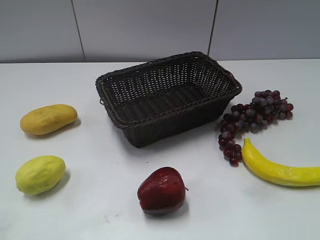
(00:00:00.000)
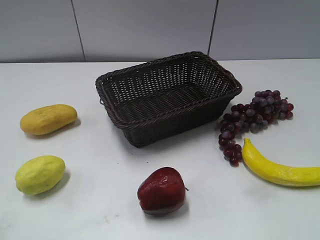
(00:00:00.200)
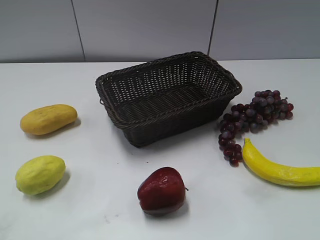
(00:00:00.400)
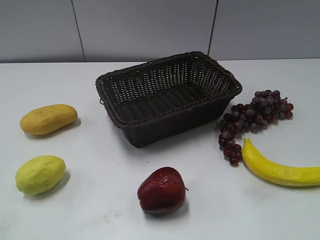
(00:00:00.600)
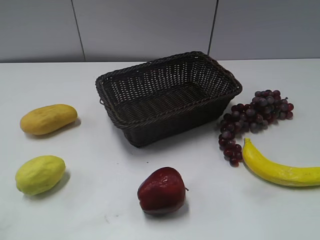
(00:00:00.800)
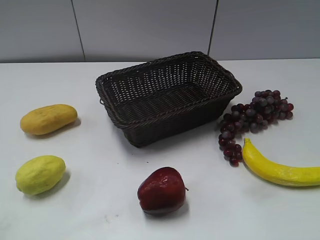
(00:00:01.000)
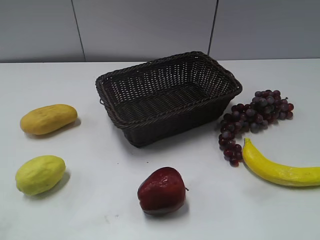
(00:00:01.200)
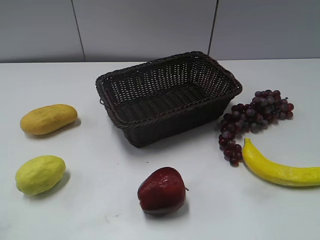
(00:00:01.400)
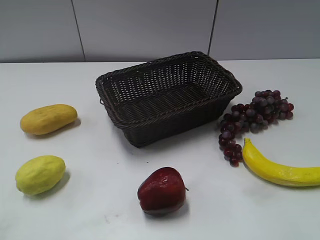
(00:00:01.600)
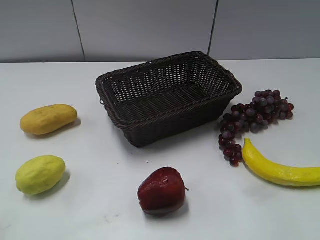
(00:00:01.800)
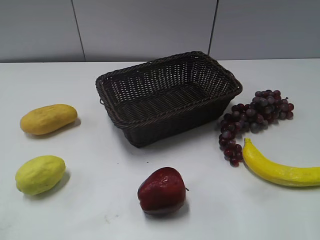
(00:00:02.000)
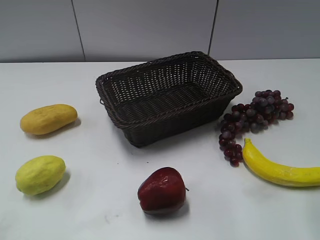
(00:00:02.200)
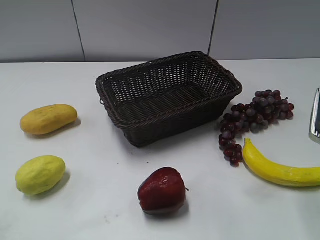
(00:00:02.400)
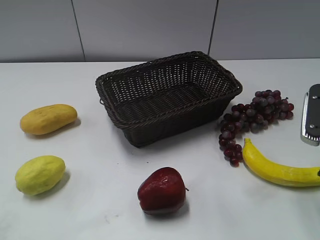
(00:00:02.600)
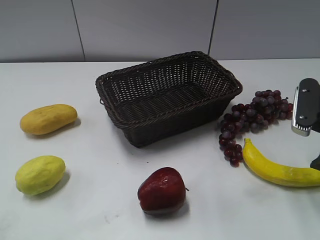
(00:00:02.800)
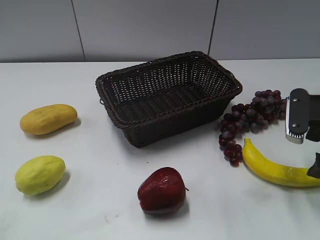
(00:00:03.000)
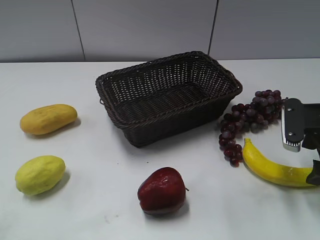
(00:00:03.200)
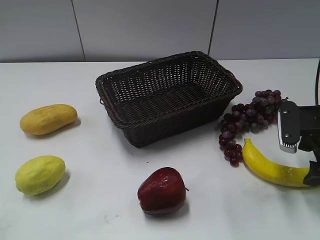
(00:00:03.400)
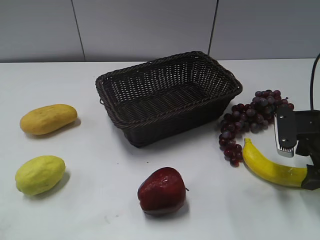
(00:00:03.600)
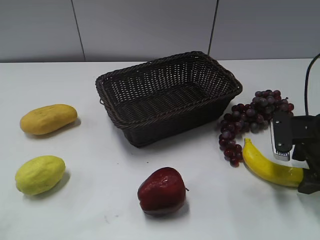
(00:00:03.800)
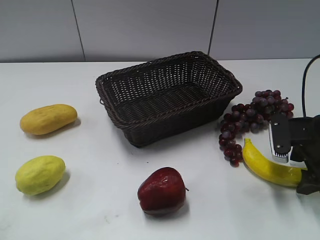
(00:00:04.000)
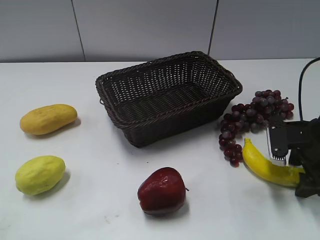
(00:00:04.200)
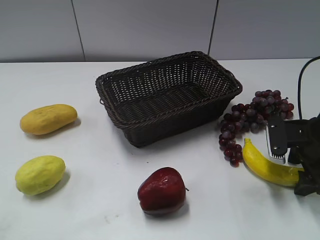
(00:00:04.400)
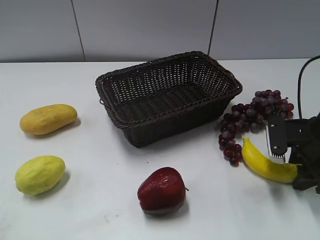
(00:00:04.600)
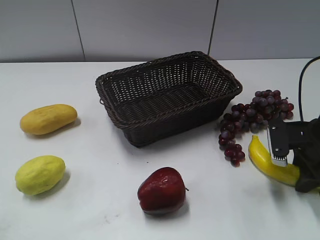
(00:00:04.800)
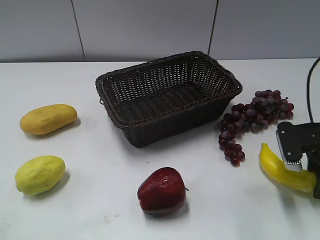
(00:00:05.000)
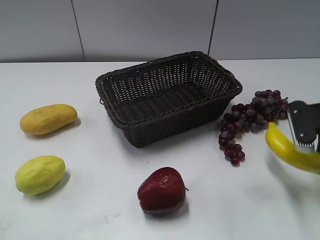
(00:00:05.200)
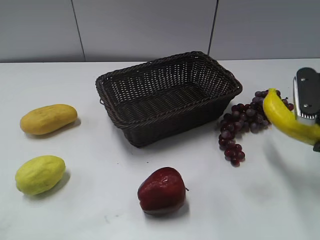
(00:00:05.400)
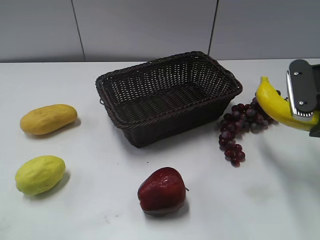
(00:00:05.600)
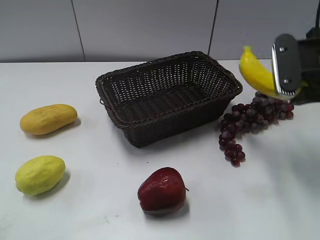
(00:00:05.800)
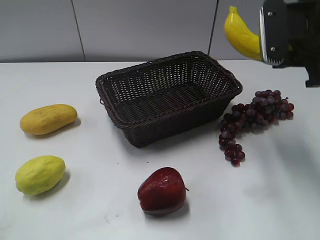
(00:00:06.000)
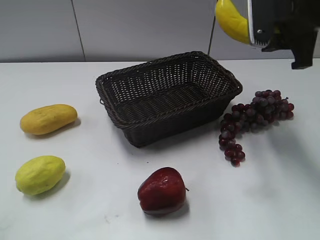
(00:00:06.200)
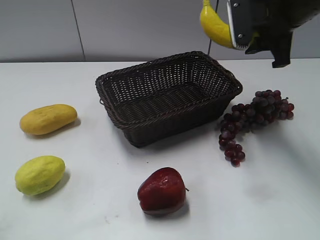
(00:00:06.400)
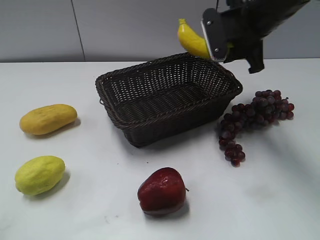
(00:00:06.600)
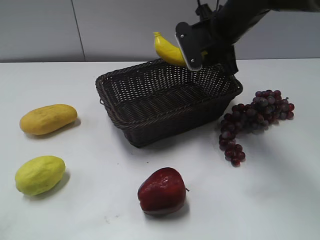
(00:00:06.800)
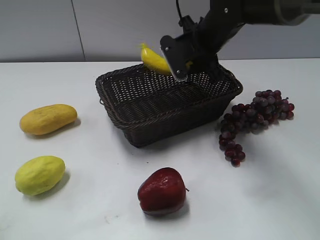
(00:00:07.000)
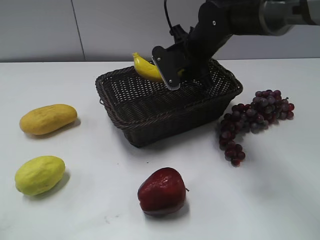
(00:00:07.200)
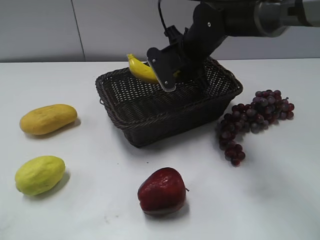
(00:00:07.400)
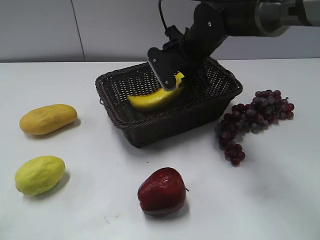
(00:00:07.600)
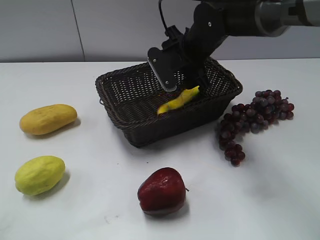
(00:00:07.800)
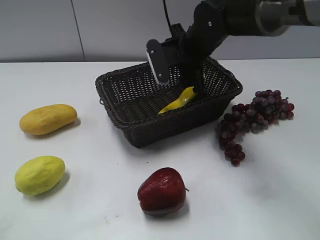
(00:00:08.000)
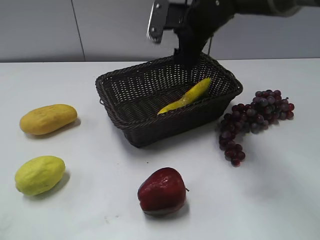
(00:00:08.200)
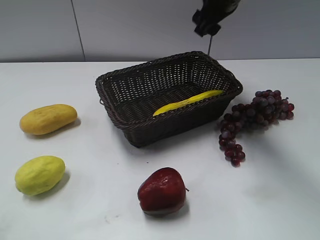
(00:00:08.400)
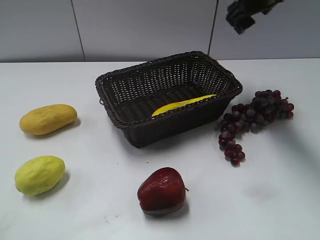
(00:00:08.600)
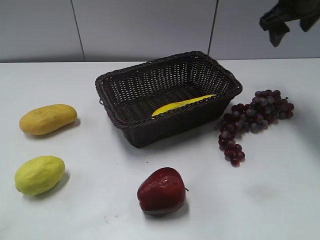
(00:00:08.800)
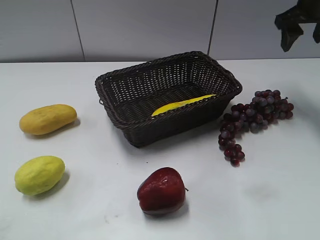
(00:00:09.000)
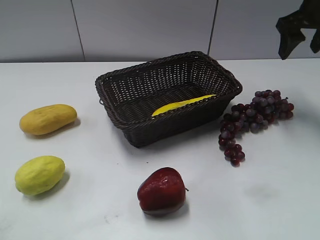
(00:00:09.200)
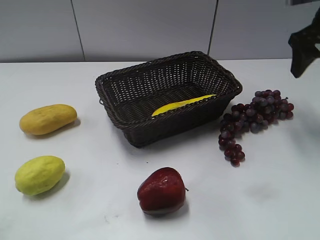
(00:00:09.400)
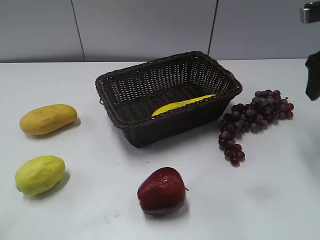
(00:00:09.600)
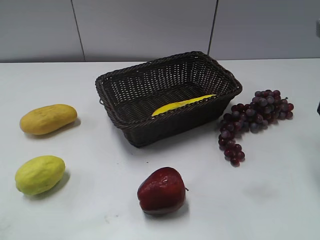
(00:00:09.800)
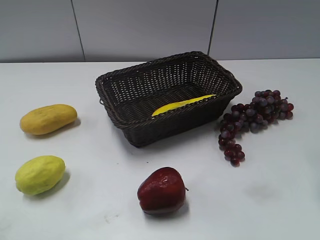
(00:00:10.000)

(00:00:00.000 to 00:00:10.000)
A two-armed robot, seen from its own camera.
Step, 00:00:02.200 - 00:00:05.000: Grasp the banana with right gripper.
Step, 00:00:05.200 - 00:00:07.800: Place the banana in the basket with right gripper.
00:00:01.400 - 00:00:02.800: The right gripper travels forward and downward by roughly 25 cm.
00:00:02.800 - 00:00:04.200: The right gripper is displaced downward by roughly 10 cm.
00:00:04.200 - 00:00:05.800: The right gripper shifts roughly 15 cm upward, and closes.
00:00:05.800 - 00:00:07.200: The right gripper moves to the left, forward and downward, approximately 20 cm.
00:00:07.200 - 00:00:08.600: The right gripper is displaced to the right and upward by approximately 15 cm, and opens.
00:00:08.600 - 00:00:10.000: The right gripper is displaced backward and to the right by about 25 cm.

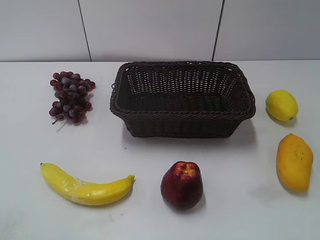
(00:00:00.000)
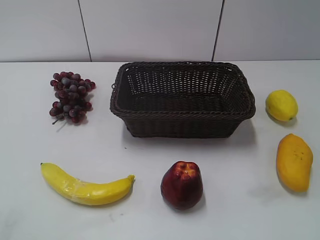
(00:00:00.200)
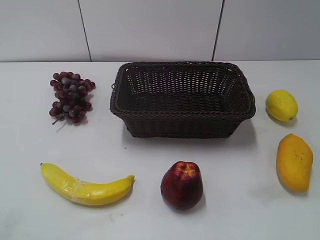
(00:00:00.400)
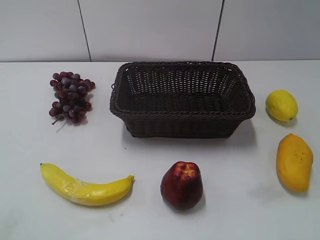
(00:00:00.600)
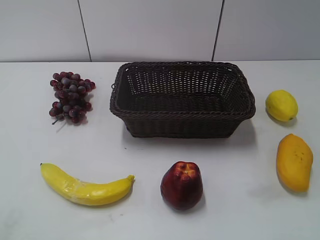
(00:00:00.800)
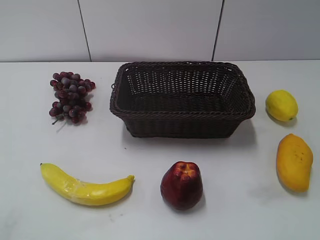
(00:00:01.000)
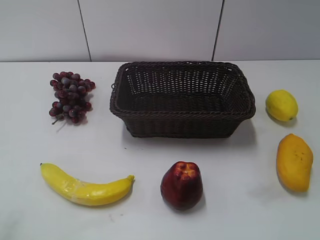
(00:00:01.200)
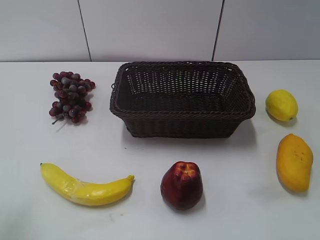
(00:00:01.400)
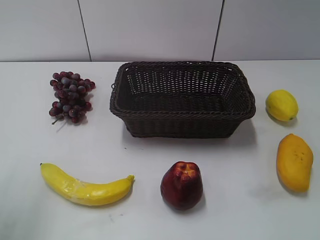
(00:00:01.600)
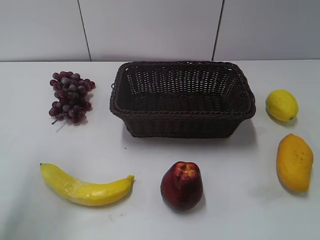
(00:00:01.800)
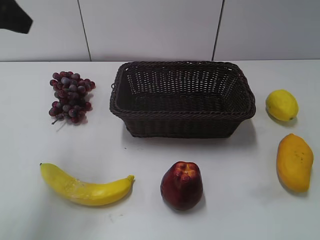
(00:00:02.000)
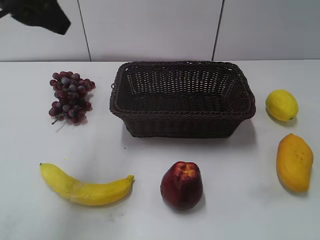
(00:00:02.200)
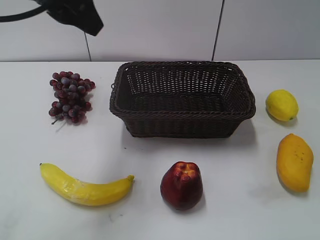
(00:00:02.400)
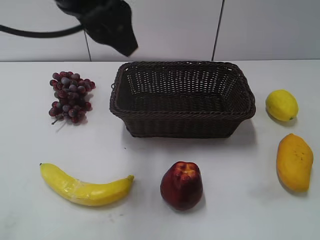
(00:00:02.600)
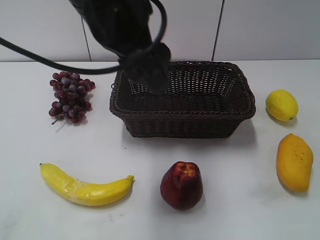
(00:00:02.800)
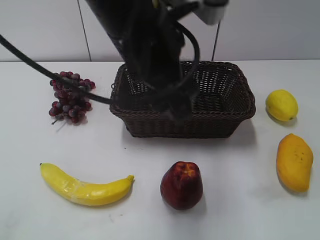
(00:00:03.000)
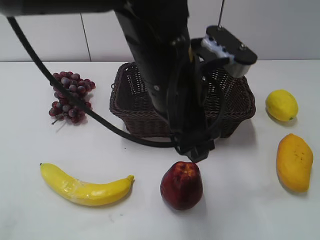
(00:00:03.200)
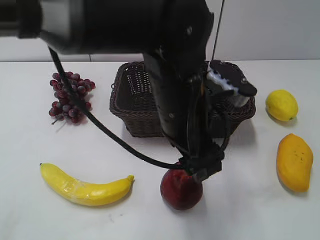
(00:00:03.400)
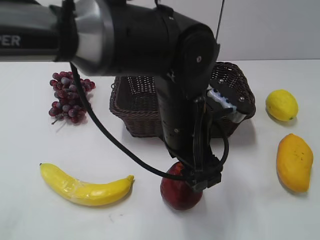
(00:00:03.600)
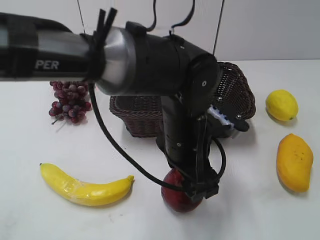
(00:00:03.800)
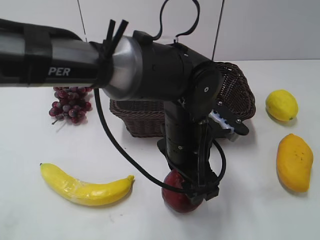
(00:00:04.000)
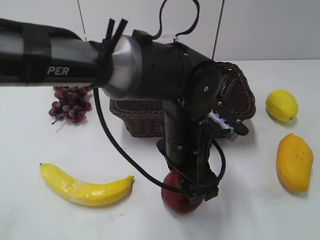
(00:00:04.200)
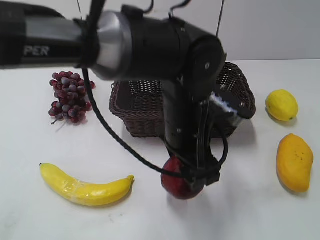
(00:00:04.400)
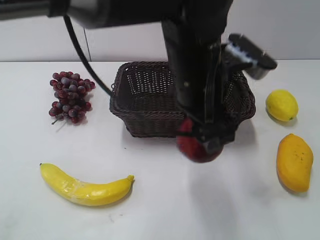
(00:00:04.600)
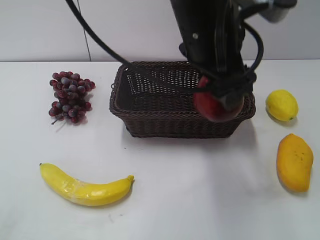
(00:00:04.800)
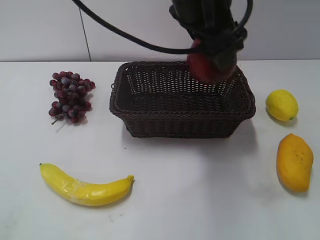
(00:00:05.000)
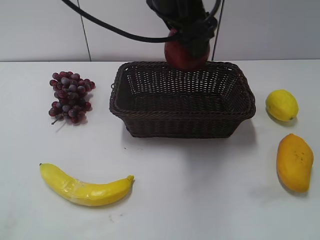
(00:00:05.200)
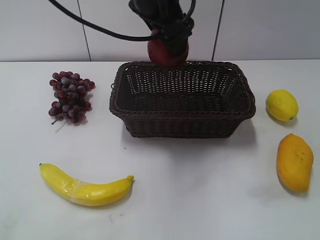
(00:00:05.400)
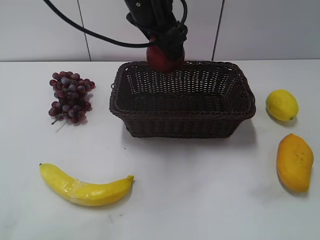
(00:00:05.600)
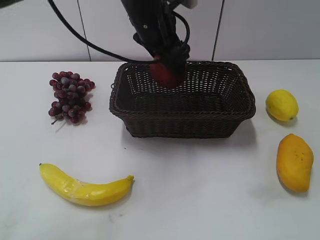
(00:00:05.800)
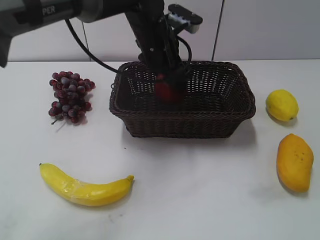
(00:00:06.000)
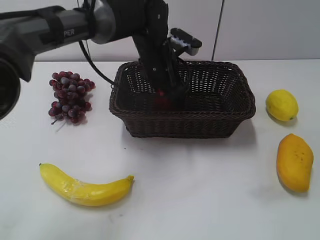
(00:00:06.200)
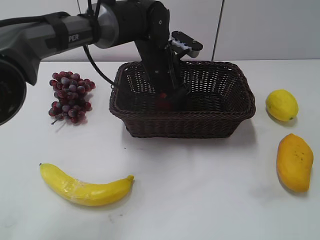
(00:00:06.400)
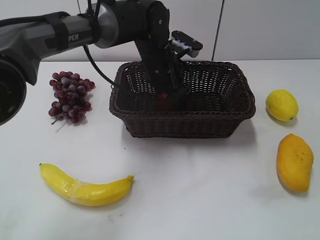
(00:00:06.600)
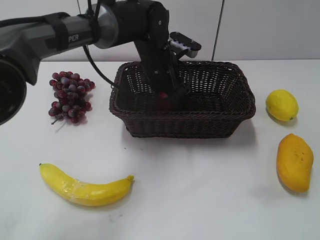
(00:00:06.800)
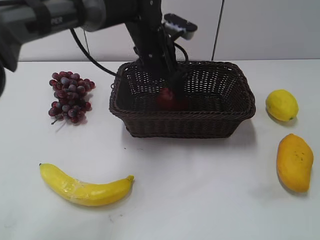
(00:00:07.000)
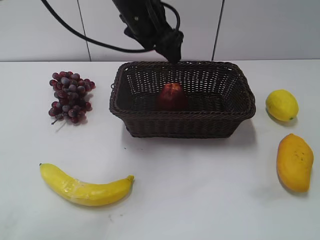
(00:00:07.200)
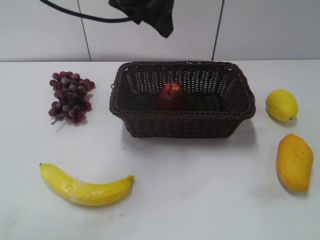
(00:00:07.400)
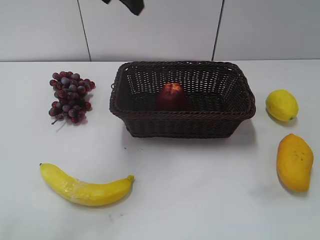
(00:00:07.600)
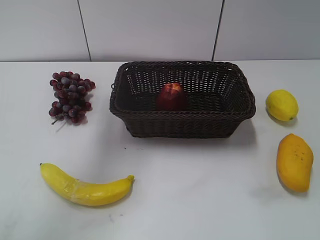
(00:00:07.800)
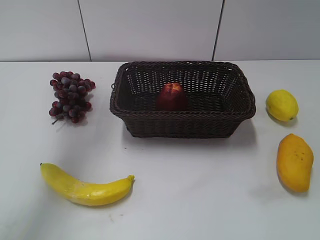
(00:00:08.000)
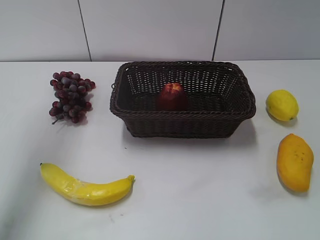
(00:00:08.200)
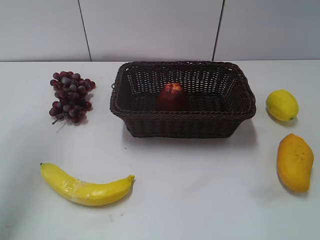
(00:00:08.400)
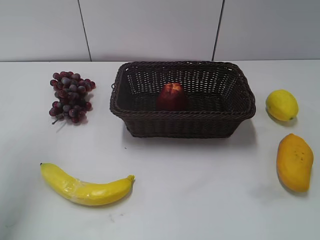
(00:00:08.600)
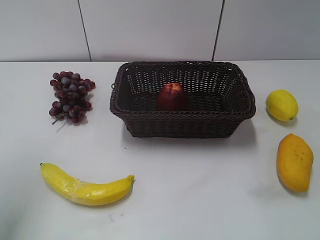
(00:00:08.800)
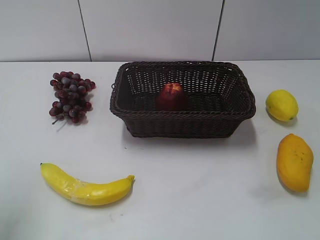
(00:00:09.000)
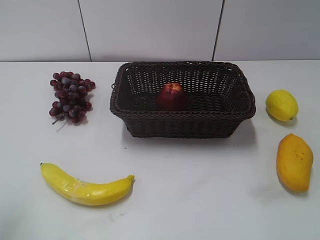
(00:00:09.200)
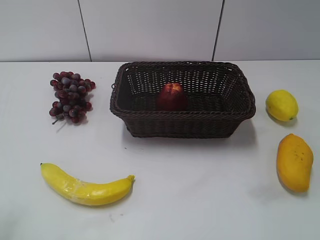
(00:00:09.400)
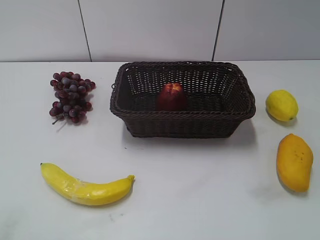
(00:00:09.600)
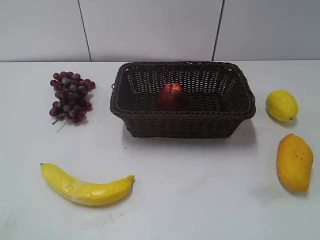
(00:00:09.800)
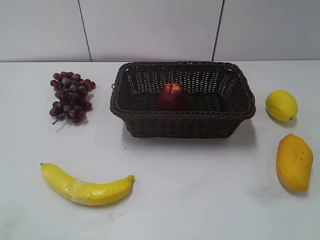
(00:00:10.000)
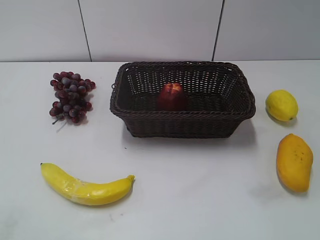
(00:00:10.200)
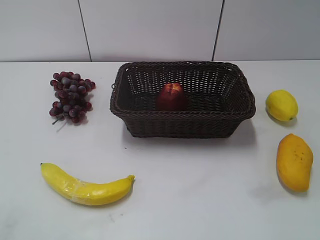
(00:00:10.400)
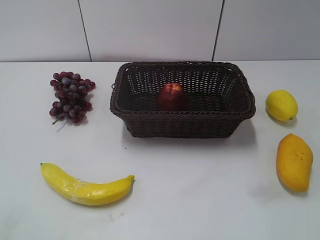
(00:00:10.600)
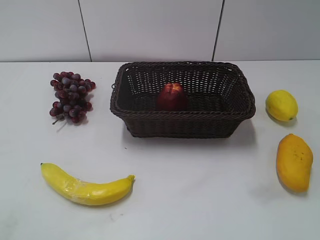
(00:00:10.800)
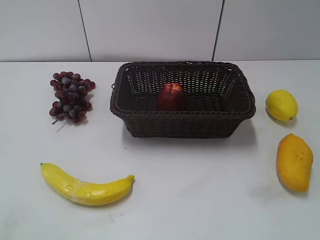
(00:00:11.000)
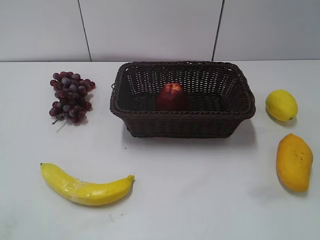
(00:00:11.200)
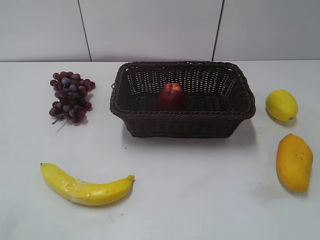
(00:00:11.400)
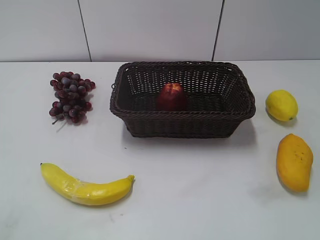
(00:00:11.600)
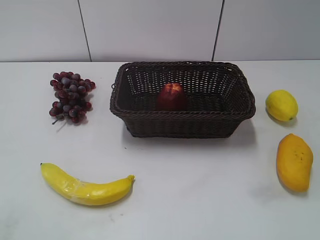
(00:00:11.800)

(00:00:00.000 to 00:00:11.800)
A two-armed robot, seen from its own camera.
Step, 00:00:02.000 - 00:00:03.800: Grasp the apple with left gripper.
Step, 00:00:04.000 - 00:00:06.600: Place the apple in the basket with left gripper.
00:00:01.400 - 00:00:03.000: The left gripper travels to the right by about 30 cm, and opens.
00:00:03.000 - 00:00:04.400: The left gripper goes some 10 cm downward and to the right.
00:00:04.400 - 00:00:06.000: The left gripper goes about 15 cm forward.
00:00:06.000 - 00:00:07.400: The left gripper heads upward and to the left, covering some 15 cm, and opens its fingers.
00:00:07.400 - 00:00:08.800: The left gripper travels to the left and backward by roughly 30 cm, and closes.
00:00:08.800 - 00:00:10.400: The left gripper travels backward and downward by roughly 25 cm.
